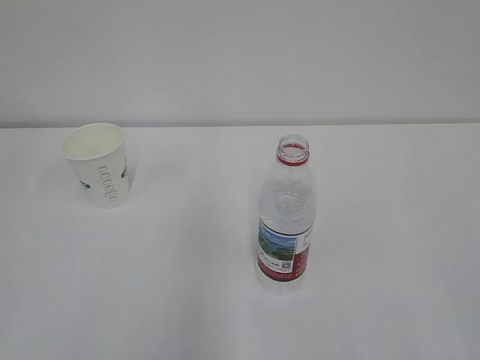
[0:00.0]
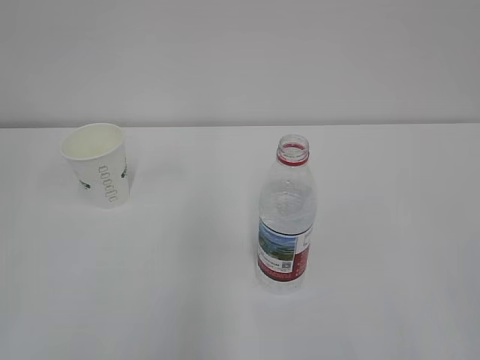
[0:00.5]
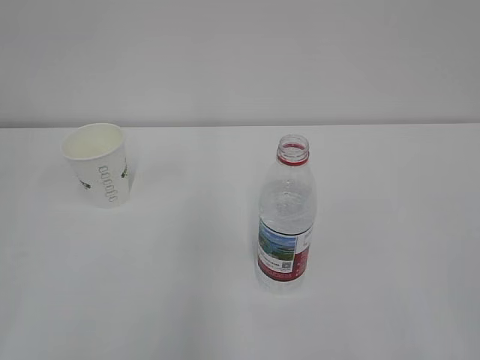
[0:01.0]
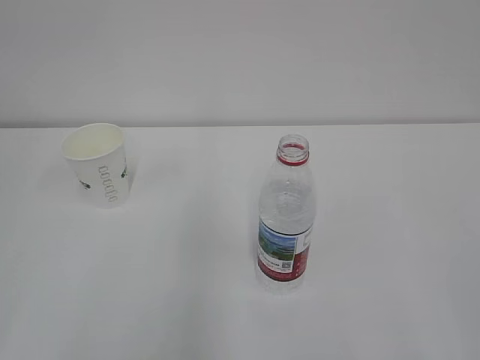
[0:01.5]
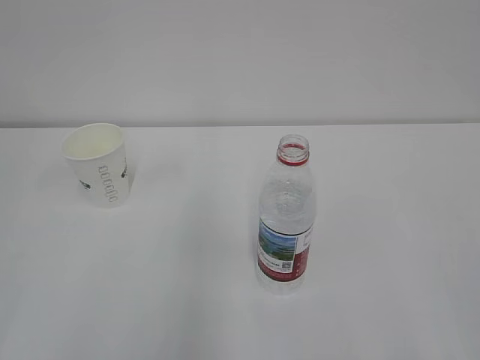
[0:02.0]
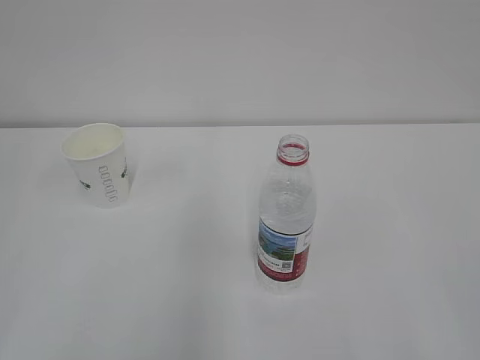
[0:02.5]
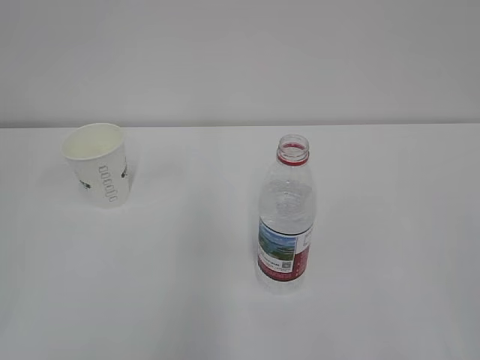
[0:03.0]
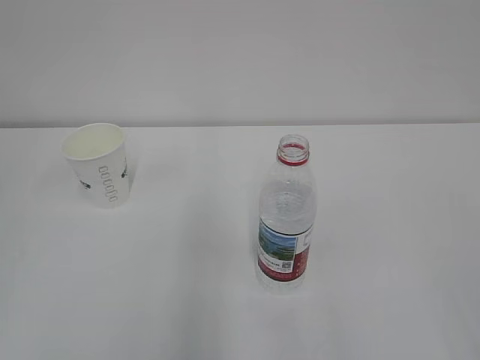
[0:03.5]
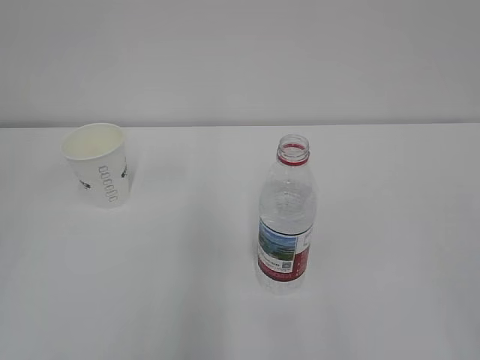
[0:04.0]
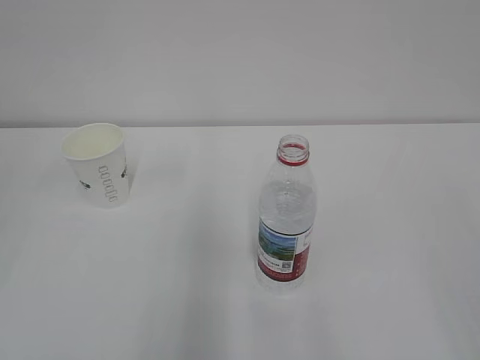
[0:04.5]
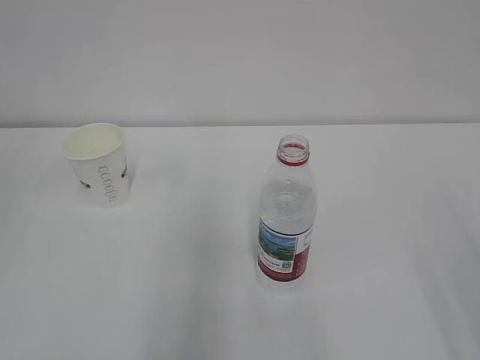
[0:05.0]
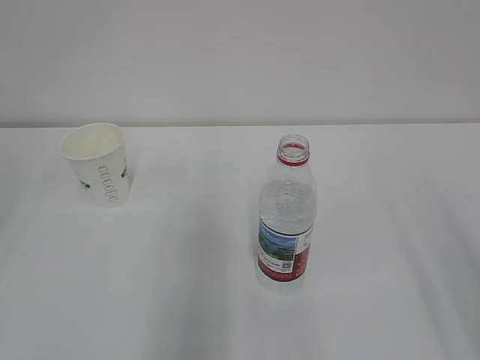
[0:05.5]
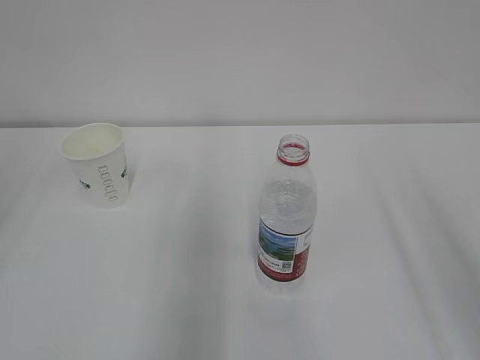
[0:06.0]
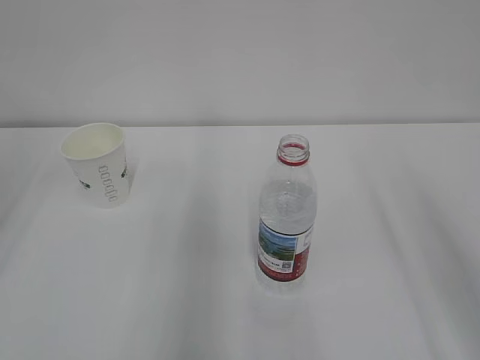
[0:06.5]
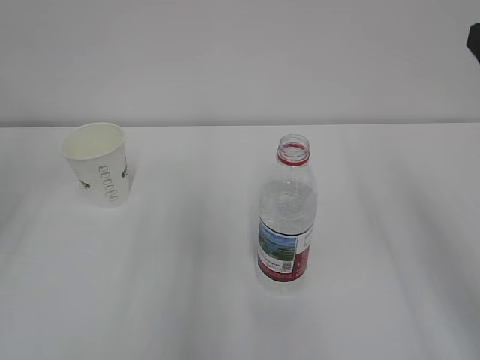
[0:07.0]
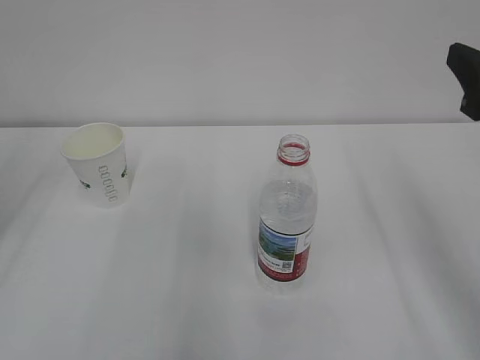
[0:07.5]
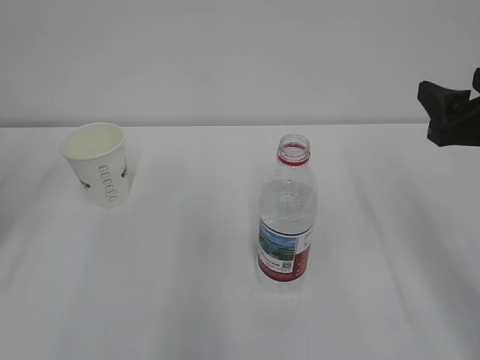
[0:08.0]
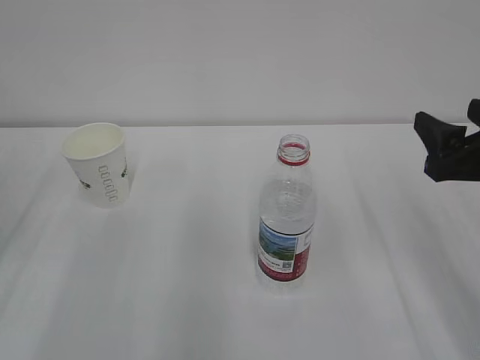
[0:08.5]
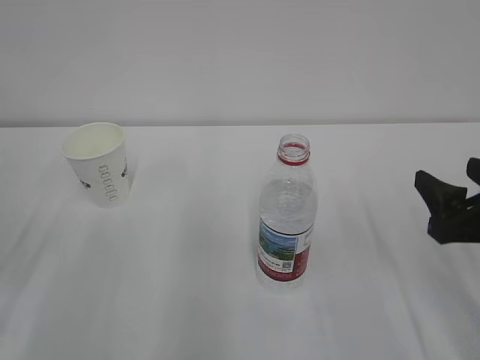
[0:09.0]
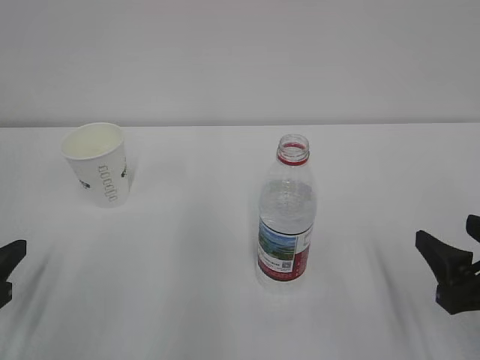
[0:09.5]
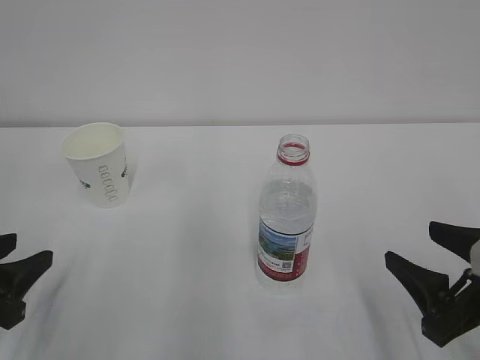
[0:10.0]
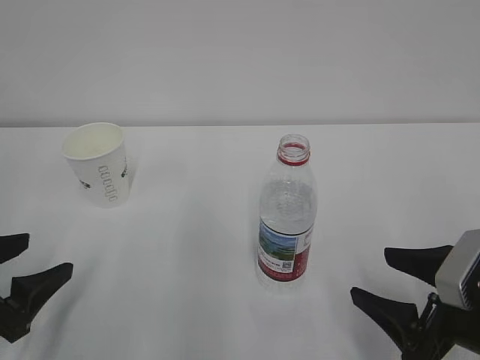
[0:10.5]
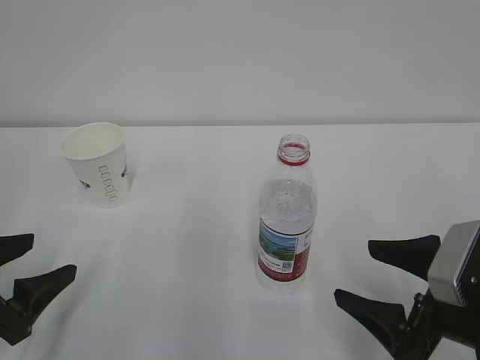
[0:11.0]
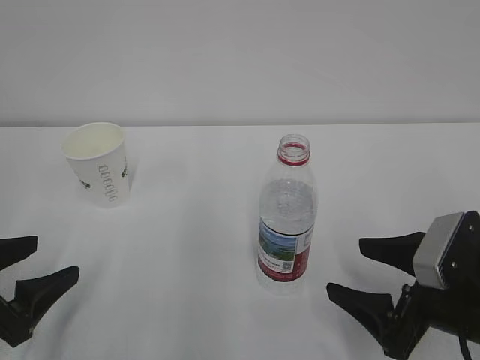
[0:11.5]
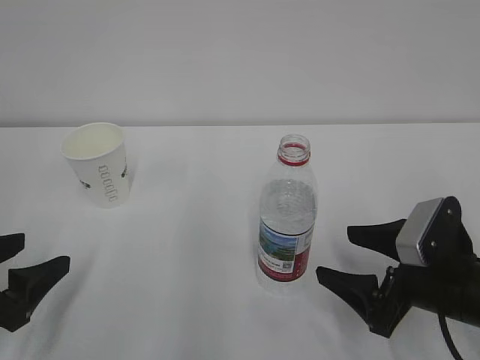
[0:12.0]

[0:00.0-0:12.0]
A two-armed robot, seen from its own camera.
0:06.0 to 0:08.0: The right gripper shifts roughly 15 cm forward and downward.
0:08.0 to 0:10.0: The left gripper is displaced backward and downward by some 15 cm; the right gripper is displaced downward and backward by roughly 15 cm.
0:10.0 to 0:12.0: The right gripper goes approximately 5 cm forward, and opens, while the left gripper opens up.

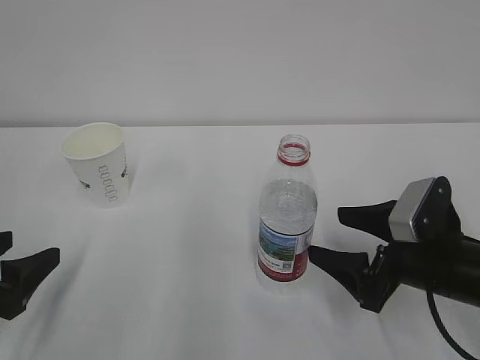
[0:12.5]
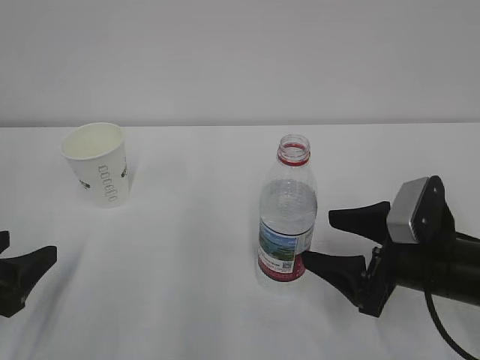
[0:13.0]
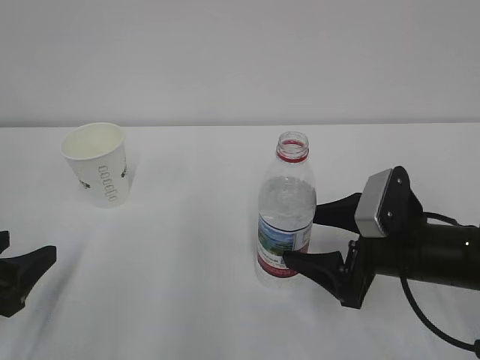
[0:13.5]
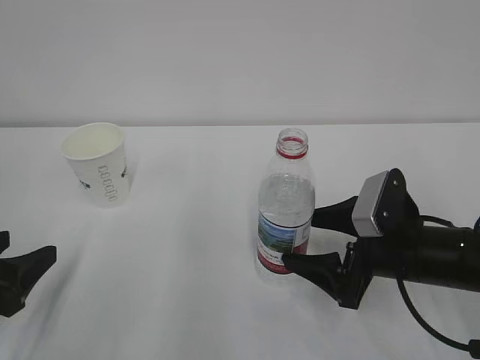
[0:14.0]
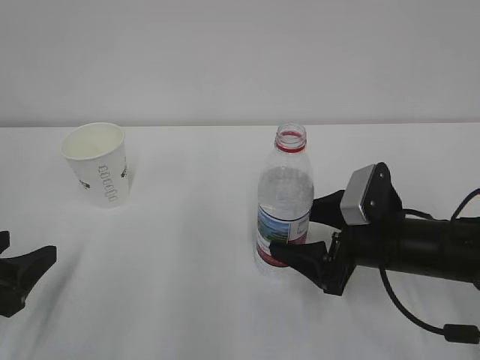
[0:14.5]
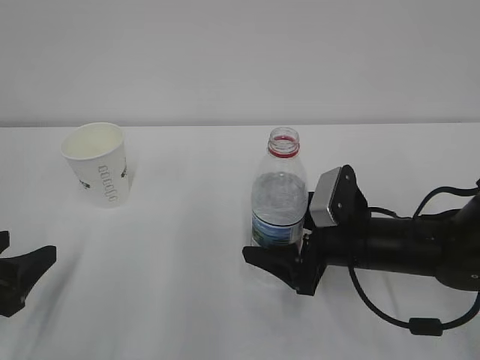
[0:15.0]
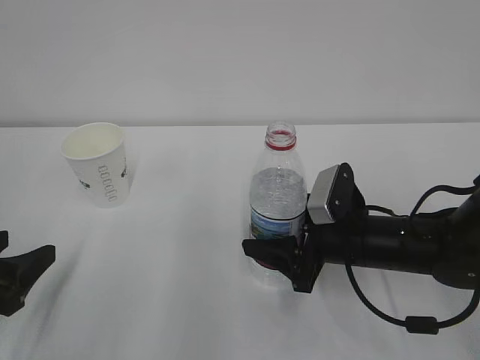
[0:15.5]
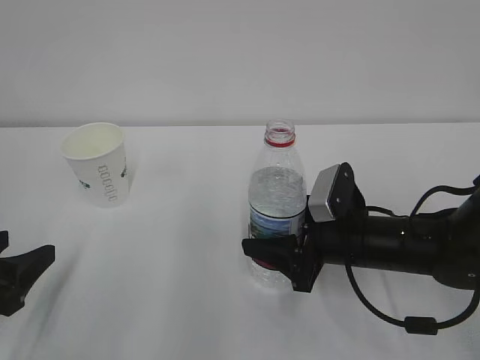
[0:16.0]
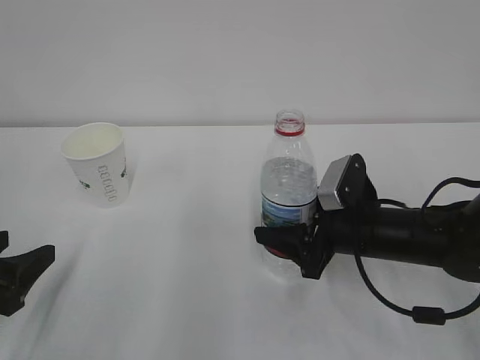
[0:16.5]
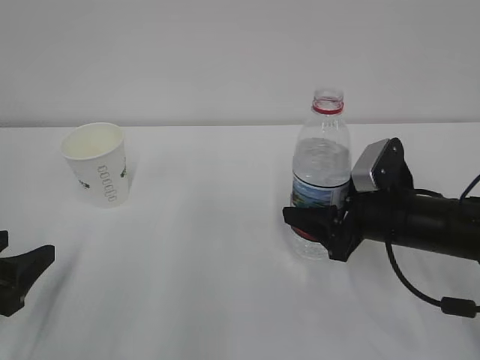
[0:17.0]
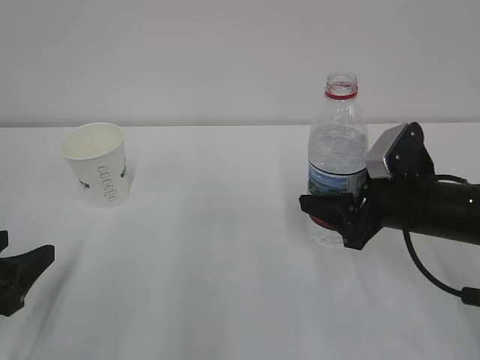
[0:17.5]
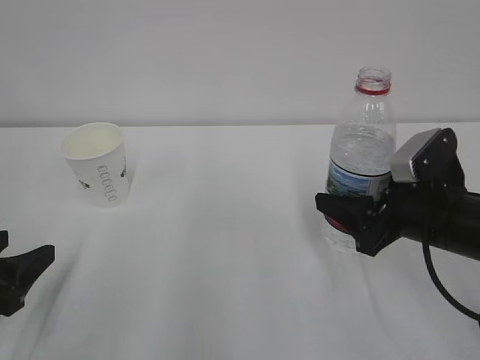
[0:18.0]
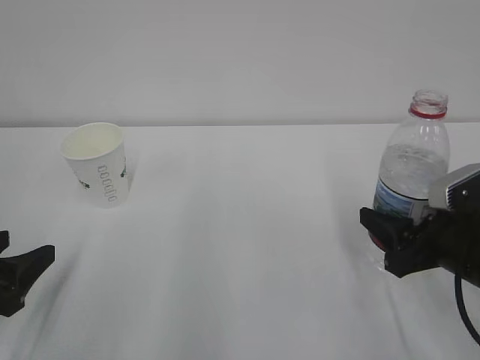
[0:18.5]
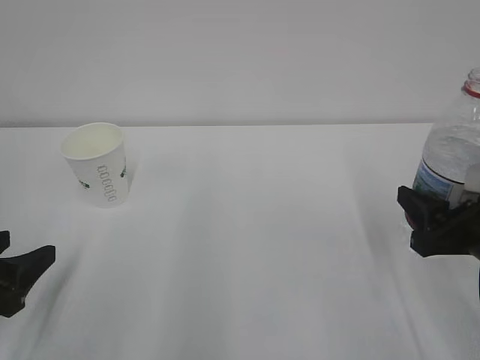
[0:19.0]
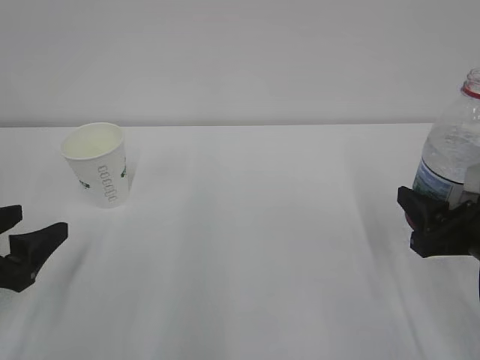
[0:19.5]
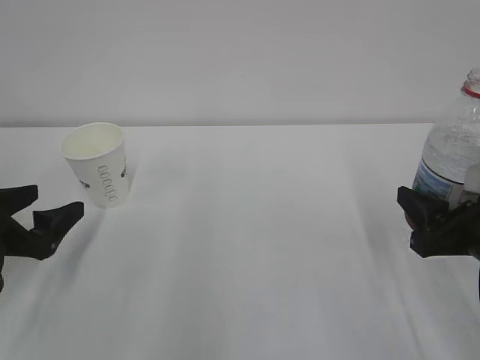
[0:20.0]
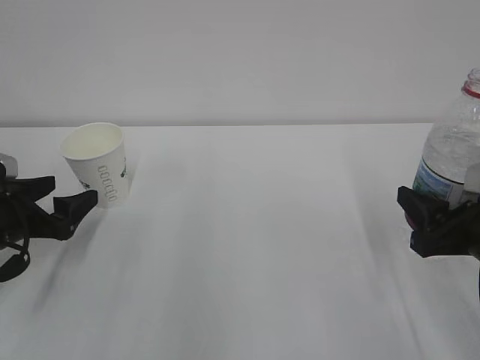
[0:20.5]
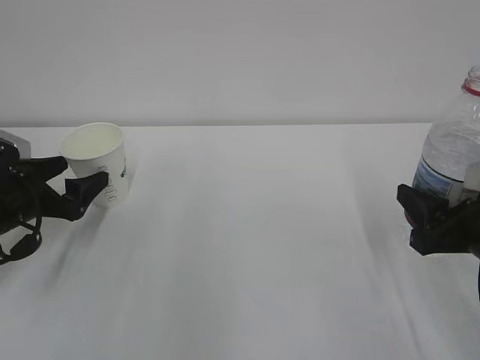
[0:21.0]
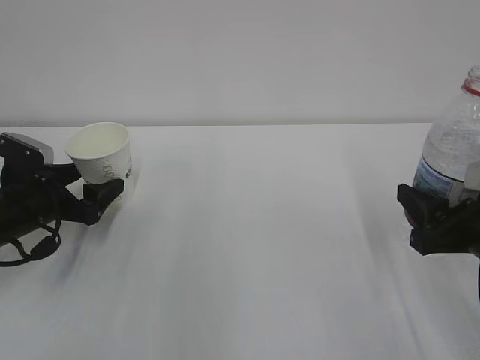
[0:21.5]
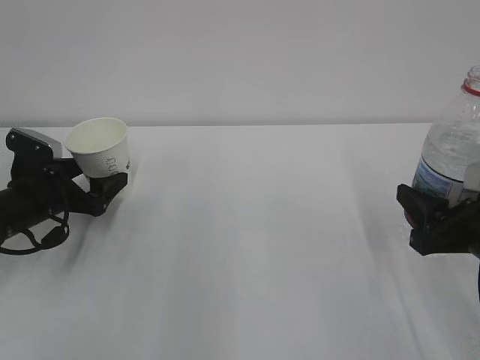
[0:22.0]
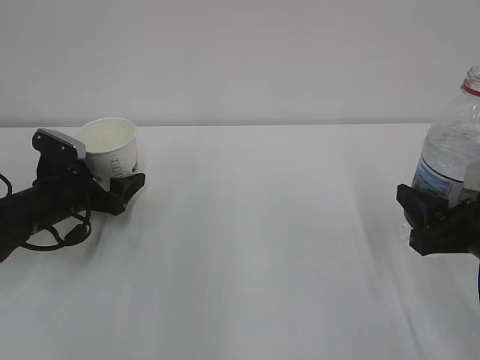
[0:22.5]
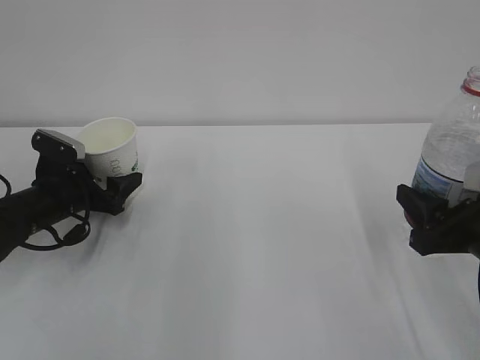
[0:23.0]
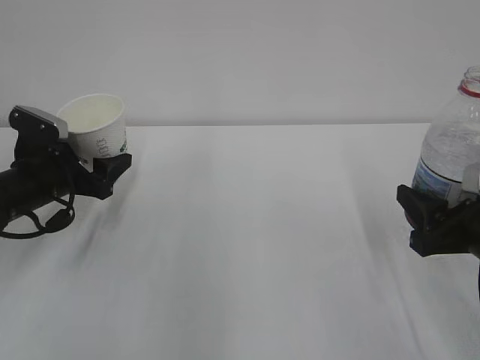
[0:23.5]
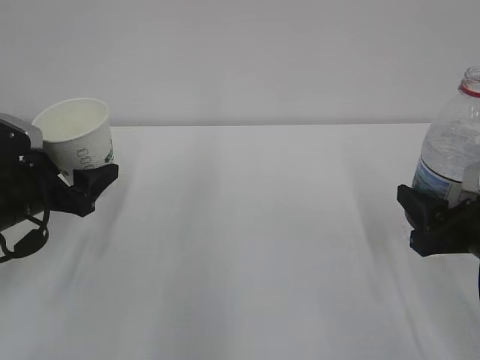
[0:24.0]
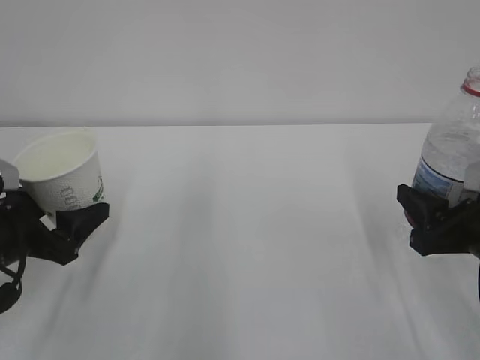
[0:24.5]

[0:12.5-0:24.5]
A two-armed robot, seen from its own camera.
0:12.5 to 0:14.5: The right gripper changes place by some 5 cm.
0:14.5 to 0:16.5: The right gripper closes.
0:16.5 to 0:18.5: The right gripper travels to the right and backward by some 10 cm.
0:18.5 to 0:20.5: The left gripper heads forward, covering about 10 cm, and opens up.
0:20.5 to 0:22.5: The left gripper moves forward, roughly 10 cm.
0:22.5 to 0:24.5: The left gripper is displaced backward and upward by some 15 cm, and closes.

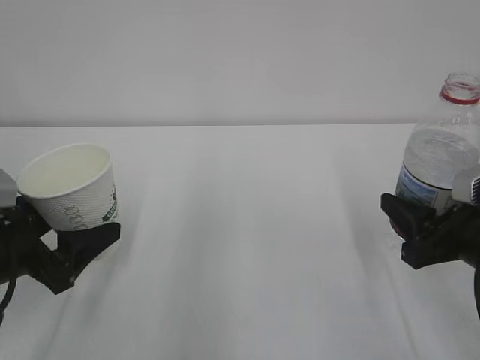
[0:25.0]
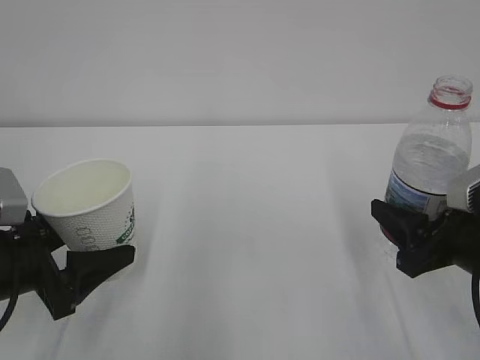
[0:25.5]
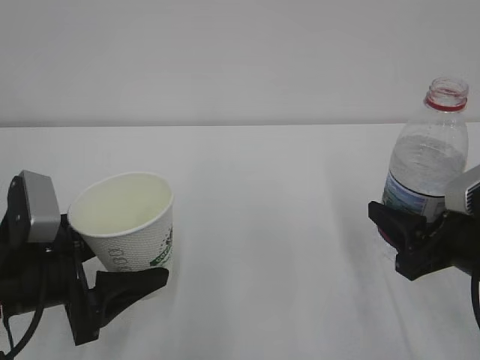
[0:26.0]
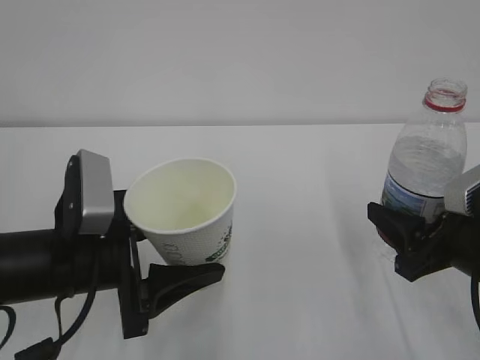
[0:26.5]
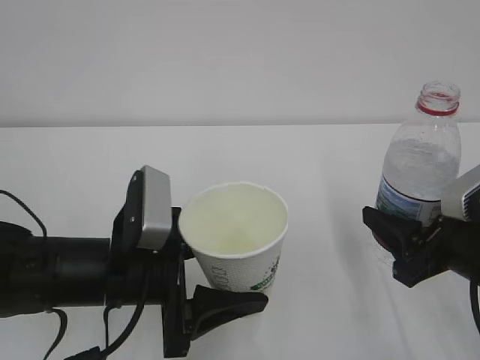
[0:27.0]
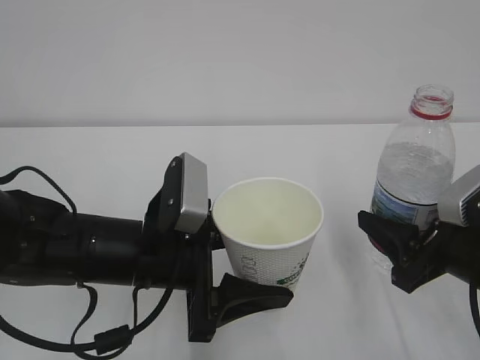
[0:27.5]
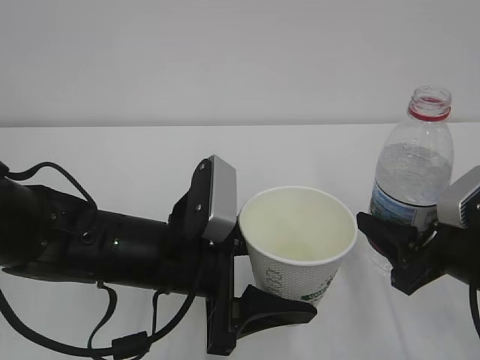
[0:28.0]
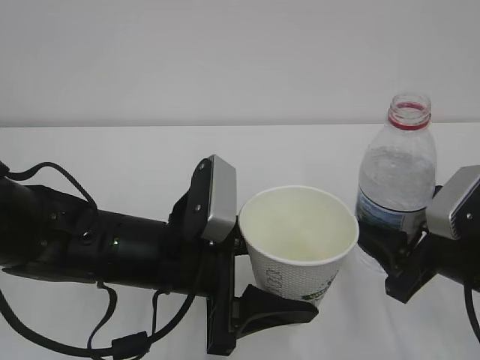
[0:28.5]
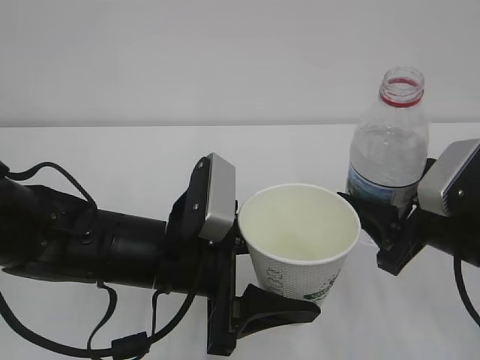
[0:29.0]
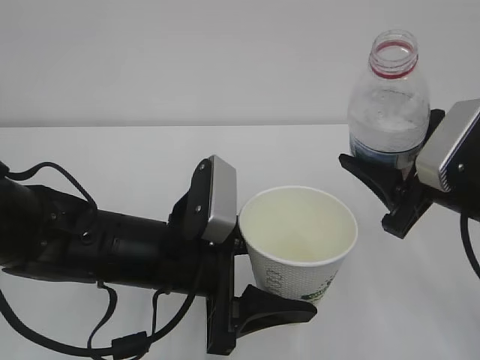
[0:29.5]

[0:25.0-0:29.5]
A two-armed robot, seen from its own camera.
0:25.0 to 0:27.0: The left gripper shifts about 15 cm to the right.
0:27.0 to 0:29.5: The left gripper travels to the right by some 5 cm. Meanwhile the right gripper heads upward, covering approximately 5 cm.
